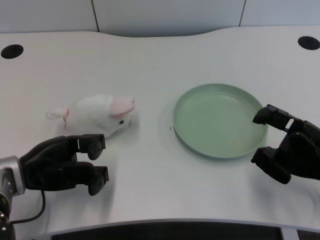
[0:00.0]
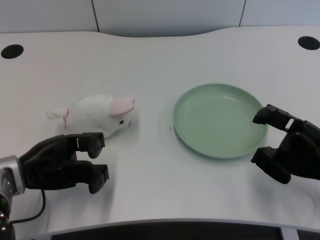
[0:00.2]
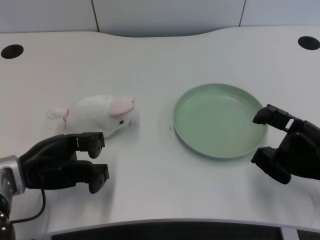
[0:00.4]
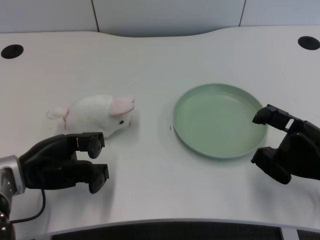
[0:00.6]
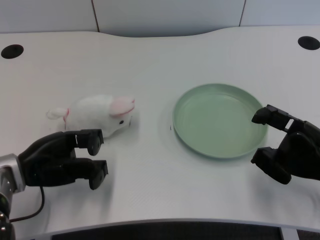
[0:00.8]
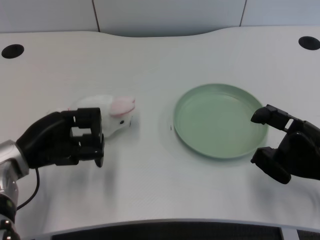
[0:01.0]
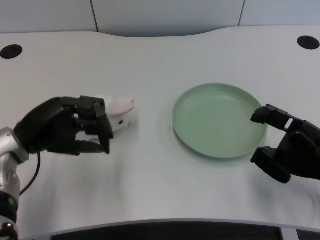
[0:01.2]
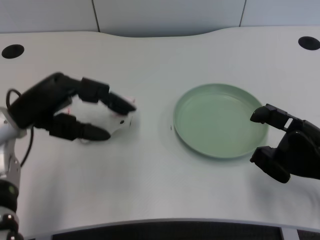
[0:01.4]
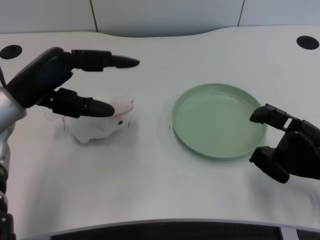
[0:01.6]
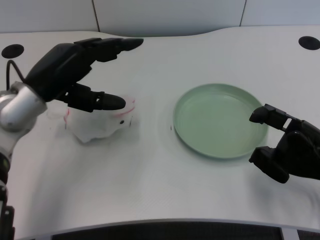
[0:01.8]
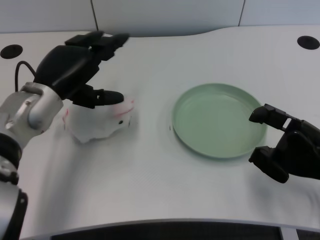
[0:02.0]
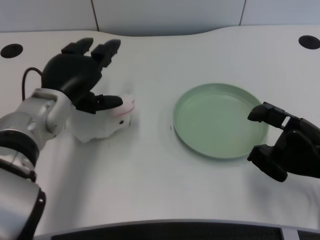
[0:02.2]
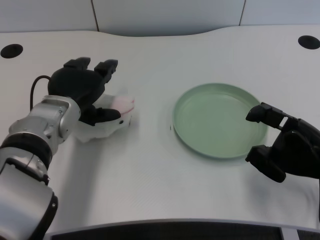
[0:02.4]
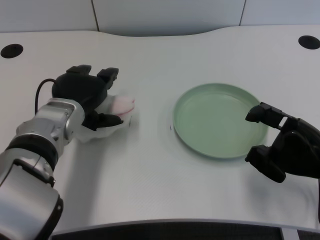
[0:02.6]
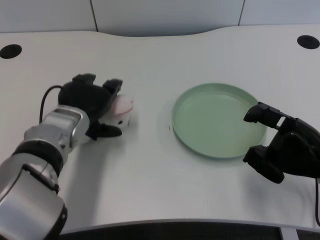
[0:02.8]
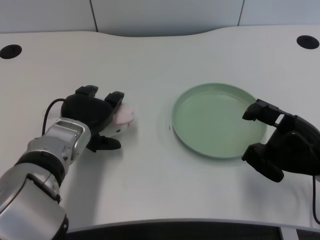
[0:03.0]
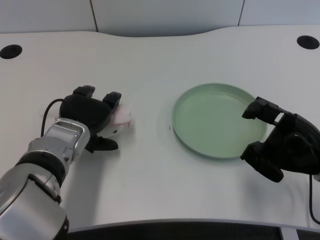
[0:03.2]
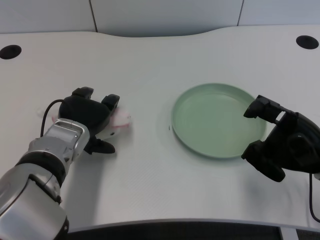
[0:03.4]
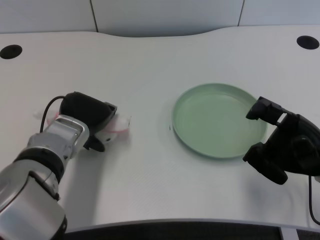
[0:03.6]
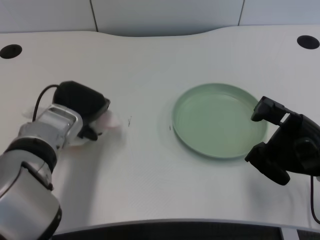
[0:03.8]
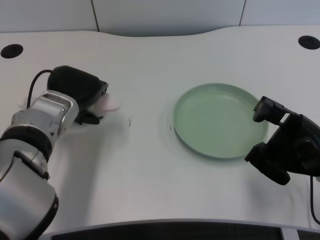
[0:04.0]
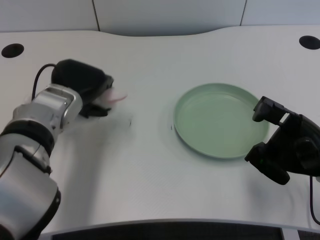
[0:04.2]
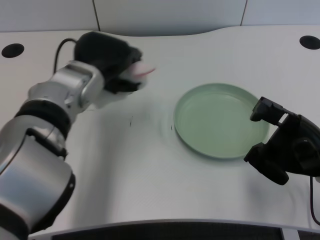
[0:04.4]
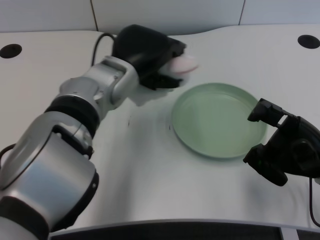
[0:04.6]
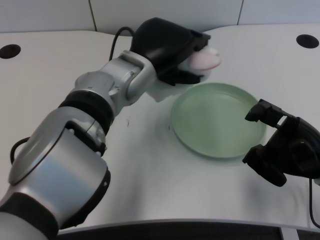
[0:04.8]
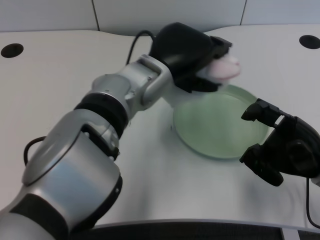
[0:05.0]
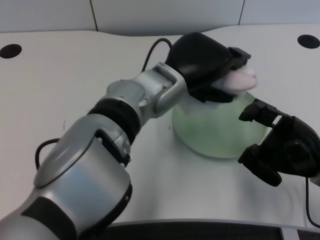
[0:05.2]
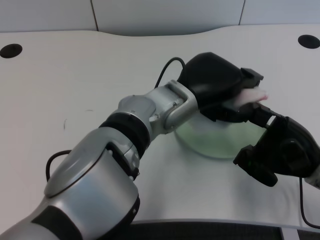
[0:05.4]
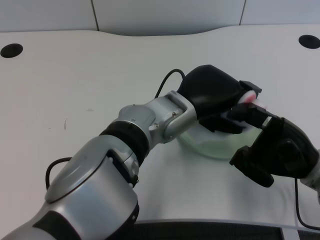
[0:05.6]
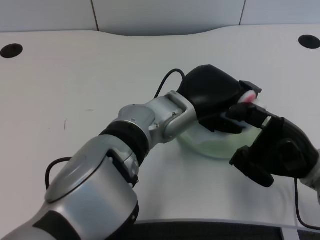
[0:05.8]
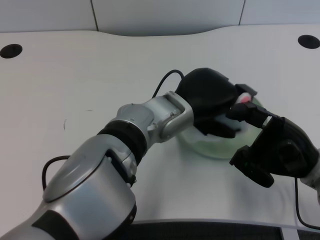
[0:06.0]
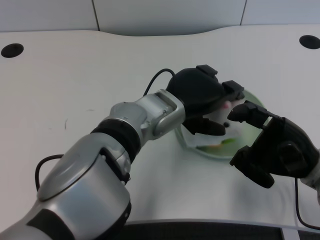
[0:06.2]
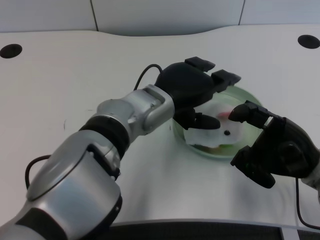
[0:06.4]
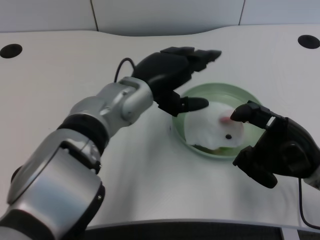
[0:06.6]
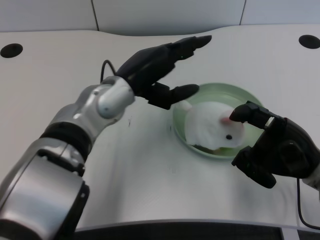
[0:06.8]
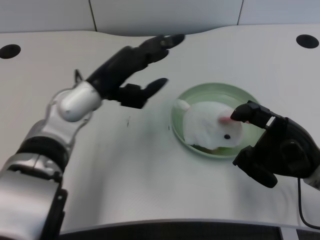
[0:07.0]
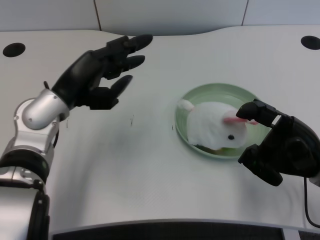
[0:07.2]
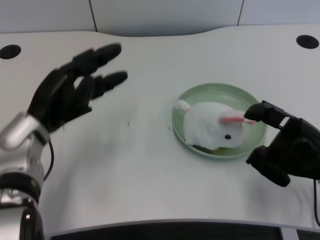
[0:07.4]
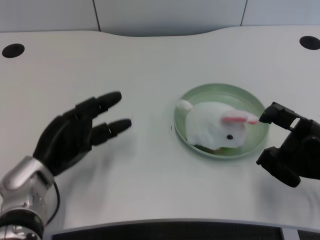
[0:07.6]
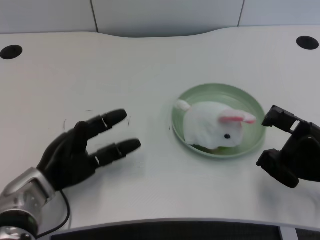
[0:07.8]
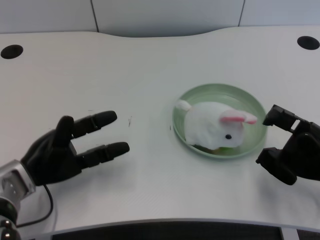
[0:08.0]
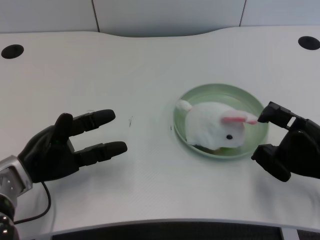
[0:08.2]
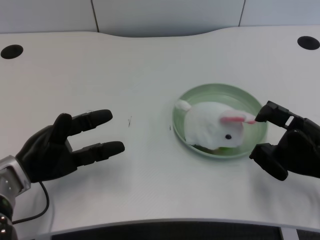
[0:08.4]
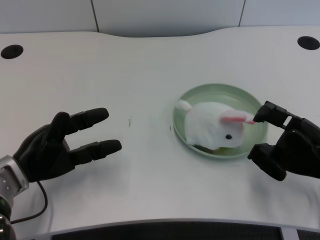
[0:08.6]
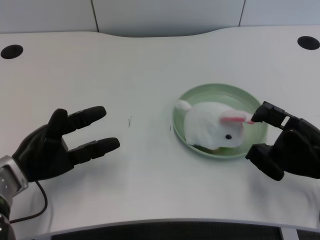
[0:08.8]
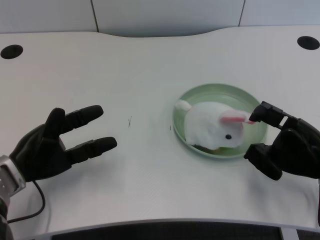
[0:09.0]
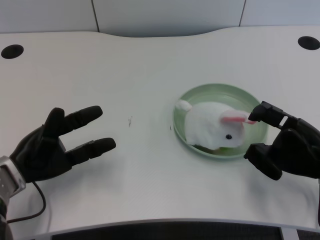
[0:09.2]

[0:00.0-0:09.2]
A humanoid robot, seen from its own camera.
Task of the whole recording: pick up the rabbit doll from the table and place it on the plate.
Step, 0:01.0 to 0:03.8: Grasp the rabbit doll with the left gripper.
Step, 0:04.0 to 0:06.2: Place the rabbit doll into the plate with the left gripper.
0:01.6 to 0:03.0: The left hand shifts roughly 10 cm downward and to the right.
0:03.0 to 0:04.6: The left hand heads upward and to the right, covering some 10 cm.
0:04.6 to 0:06.2: The left hand shifts some 5 cm to the right.
0:06.2 to 0:07.6: The left hand heads to the left and downward, covering about 20 cm.

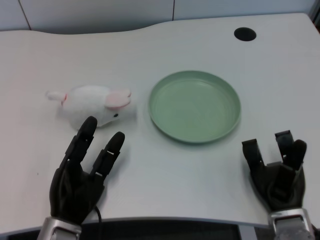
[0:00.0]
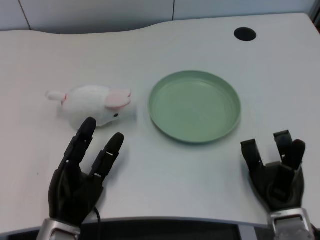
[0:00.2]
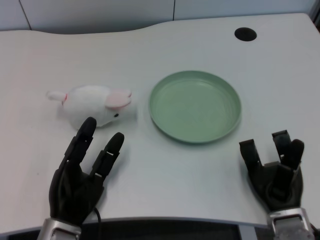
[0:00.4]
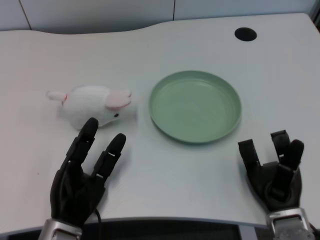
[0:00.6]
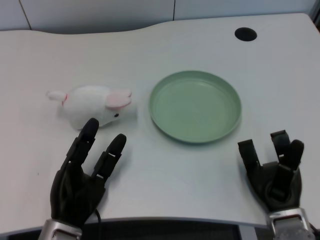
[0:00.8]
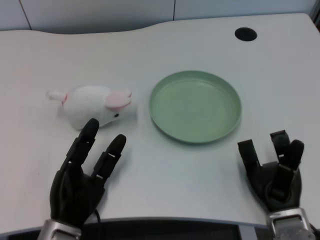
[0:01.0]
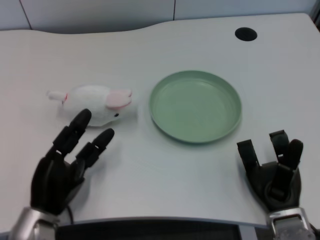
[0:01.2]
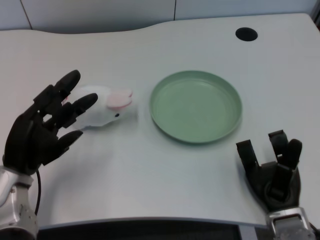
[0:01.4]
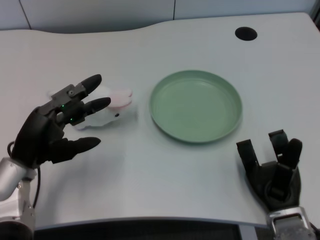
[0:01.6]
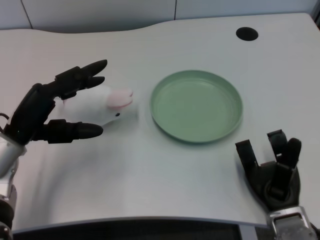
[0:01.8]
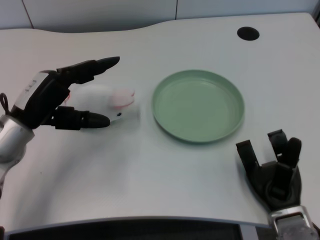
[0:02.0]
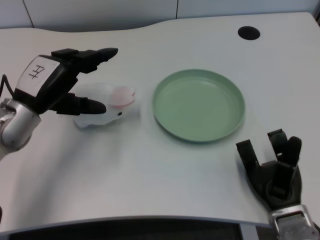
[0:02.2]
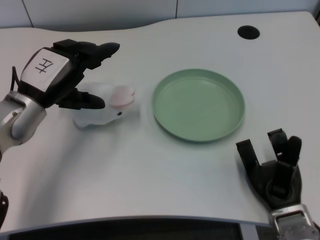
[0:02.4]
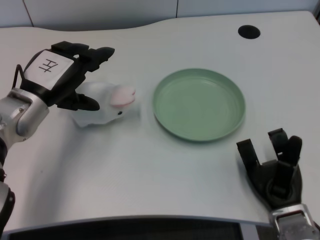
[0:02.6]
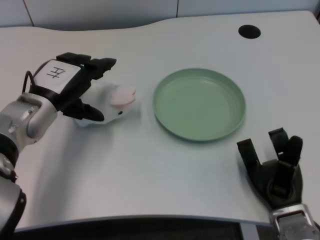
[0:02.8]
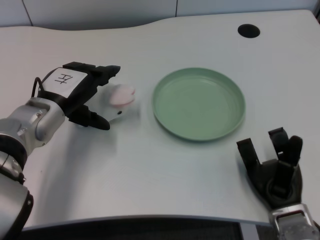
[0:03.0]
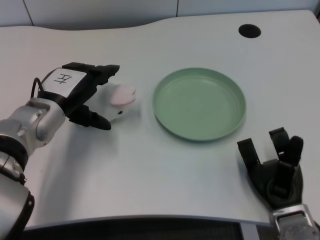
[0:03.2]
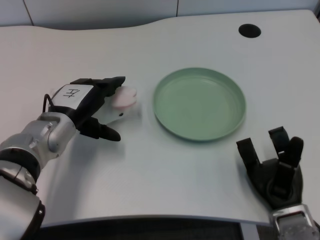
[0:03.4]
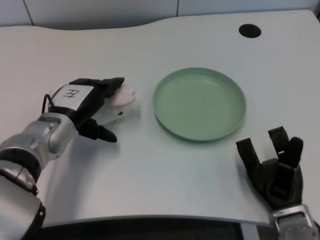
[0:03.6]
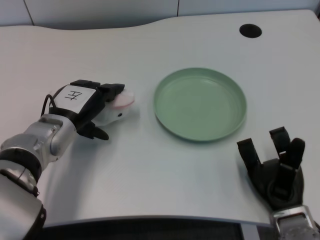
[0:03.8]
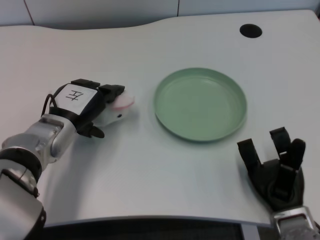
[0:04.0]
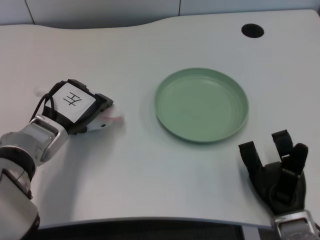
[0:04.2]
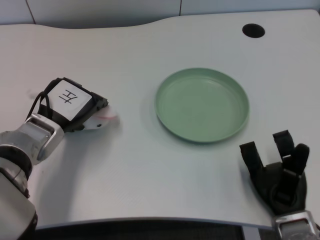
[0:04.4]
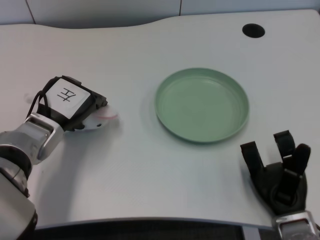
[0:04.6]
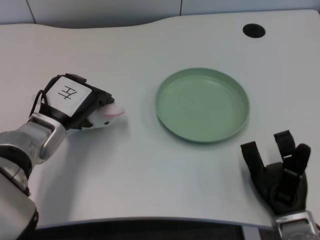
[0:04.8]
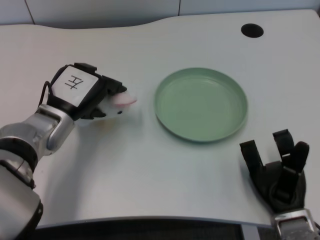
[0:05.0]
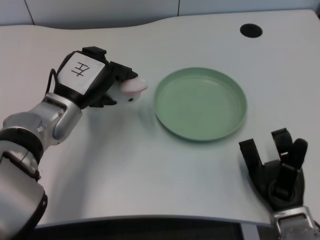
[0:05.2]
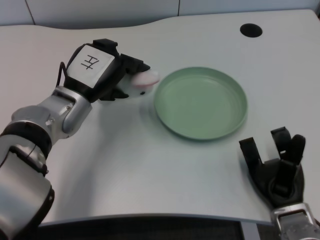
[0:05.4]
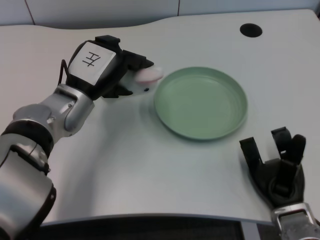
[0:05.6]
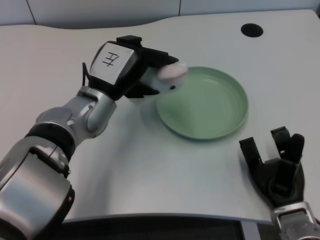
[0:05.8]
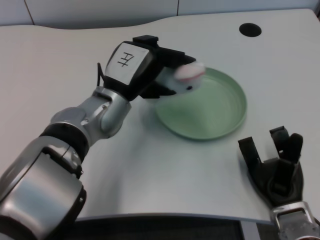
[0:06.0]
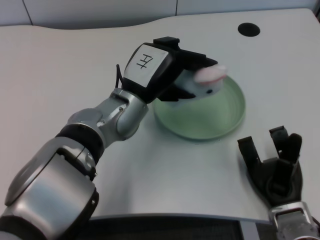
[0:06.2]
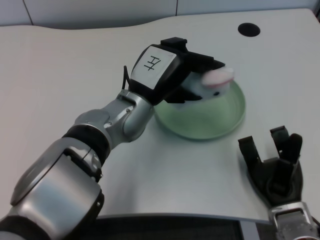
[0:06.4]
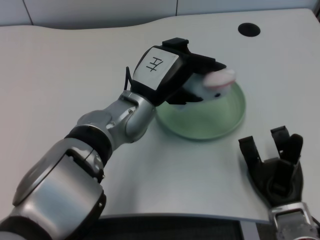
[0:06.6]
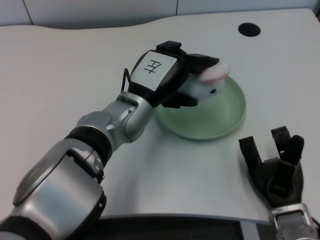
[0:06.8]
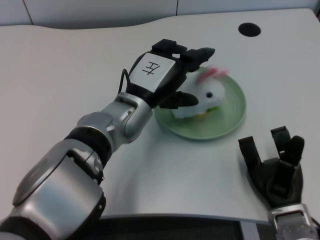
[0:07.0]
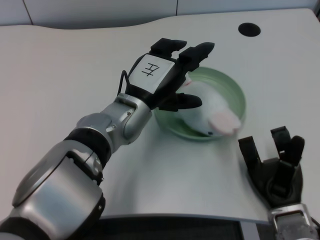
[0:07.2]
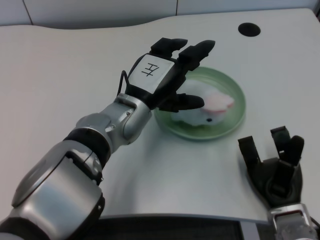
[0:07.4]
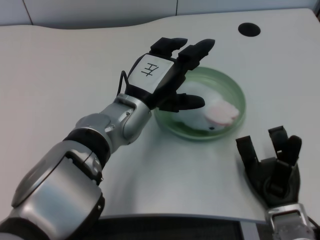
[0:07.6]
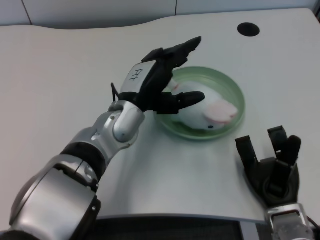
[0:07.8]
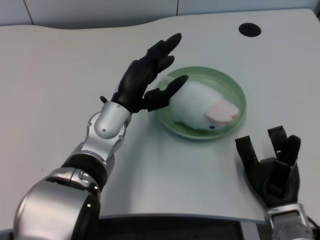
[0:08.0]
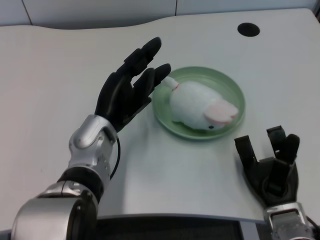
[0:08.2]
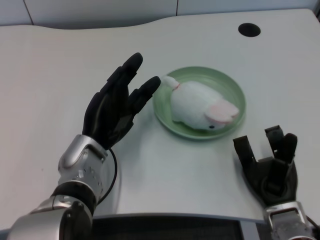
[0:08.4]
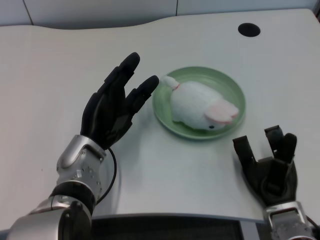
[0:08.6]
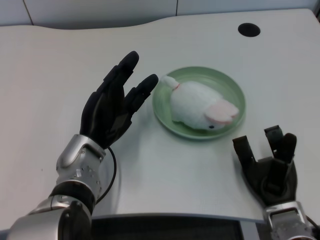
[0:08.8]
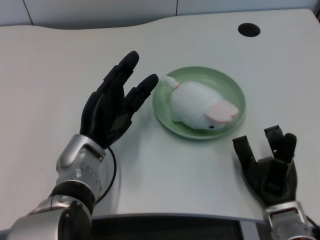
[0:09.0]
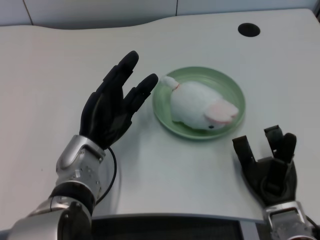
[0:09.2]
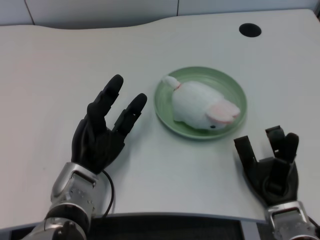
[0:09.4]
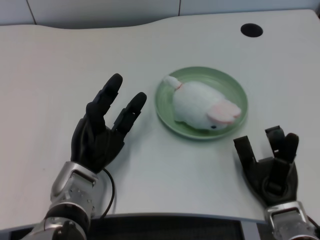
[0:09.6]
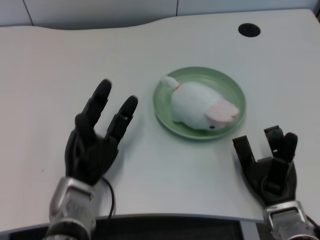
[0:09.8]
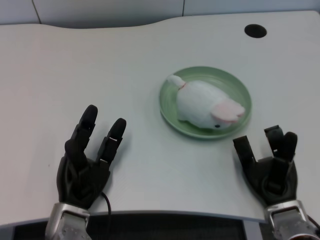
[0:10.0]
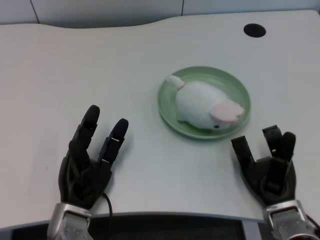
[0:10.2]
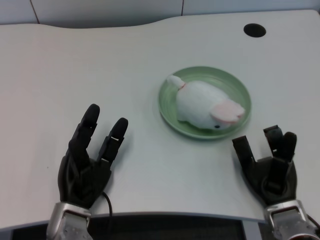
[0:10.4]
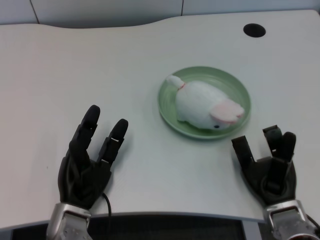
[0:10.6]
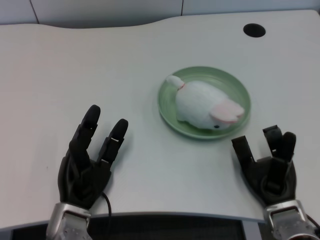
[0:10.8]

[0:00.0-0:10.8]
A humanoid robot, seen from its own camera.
Task of the whole recording: pick up the rabbit doll from the table and place it on the plate.
Step, 0:01.2 to 0:05.0: Grasp the rabbit doll with the left gripper.
Step, 0:05.2 to 0:07.4: Place the rabbit doll into the plate with the left gripper.
0:01.6 to 0:03.0: The left hand moves forward, some 5 cm.
0:04.6 to 0:06.2: The left hand moves to the right, approximately 15 cm.
0:07.8 to 0:09.2: The left hand is displaced to the left and downward by about 10 cm.
0:09.2 to 0:10.8: The left hand heads backward and downward, covering some 10 cm.

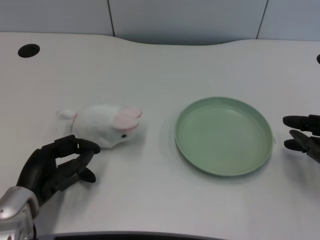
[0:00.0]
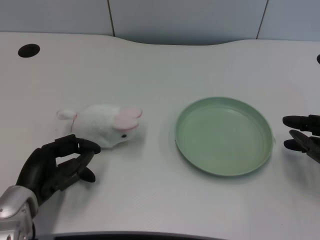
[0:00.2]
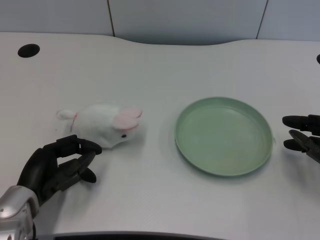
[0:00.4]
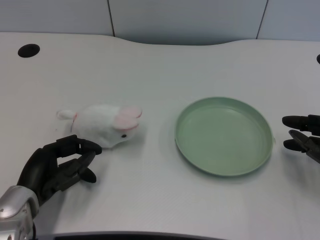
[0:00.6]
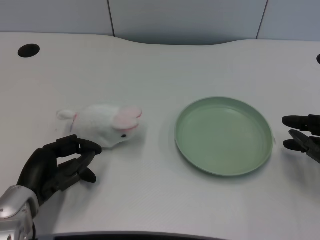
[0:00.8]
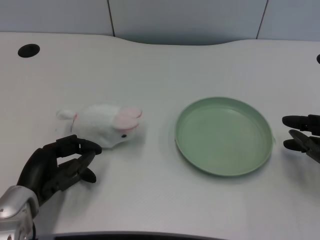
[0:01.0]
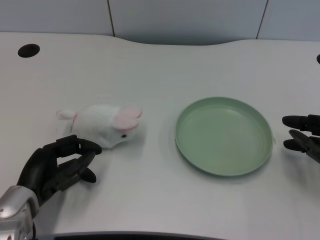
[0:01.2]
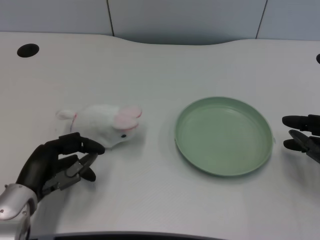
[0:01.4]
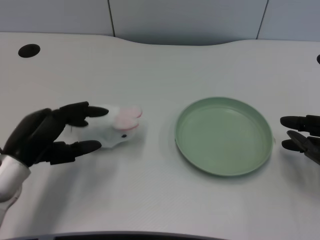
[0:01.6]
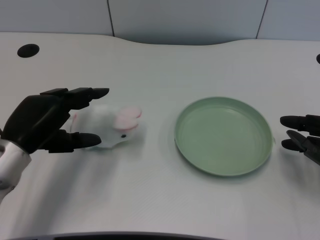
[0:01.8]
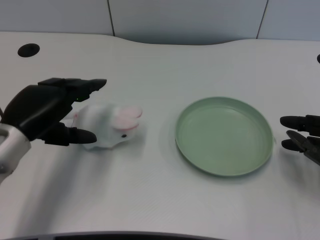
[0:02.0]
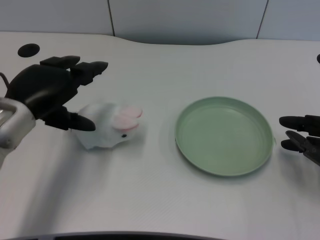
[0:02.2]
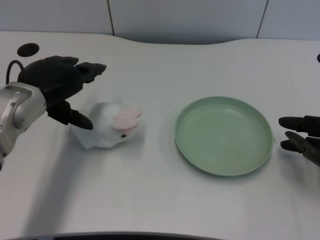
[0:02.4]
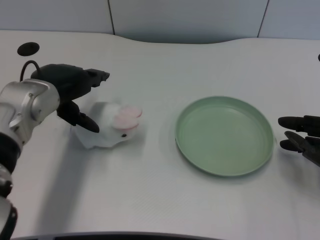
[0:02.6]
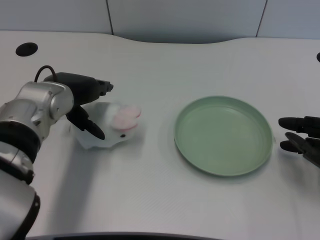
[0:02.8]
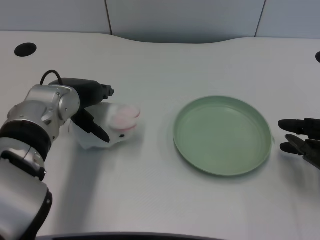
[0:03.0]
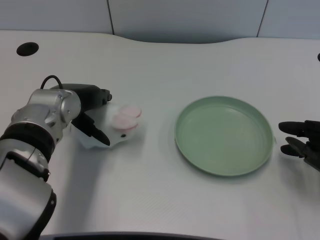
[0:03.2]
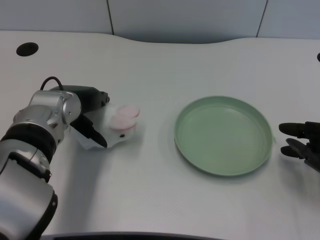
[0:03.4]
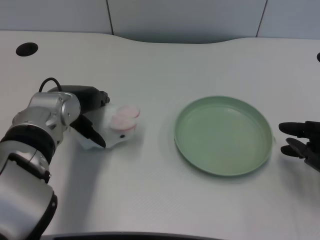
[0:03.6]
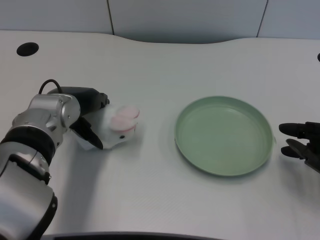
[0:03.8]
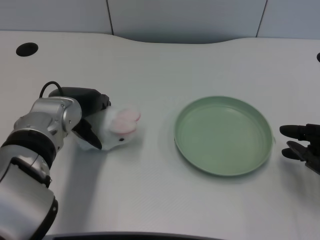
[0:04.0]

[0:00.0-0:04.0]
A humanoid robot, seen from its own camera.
Task of the whole recording: pick up the rabbit doll from the table and place it on the plate.
0:01.4 to 0:02.6: The left hand heads upward and forward, covering roughly 15 cm.
0:02.6 to 0:04.0: There are only small adjustments of the hands.
